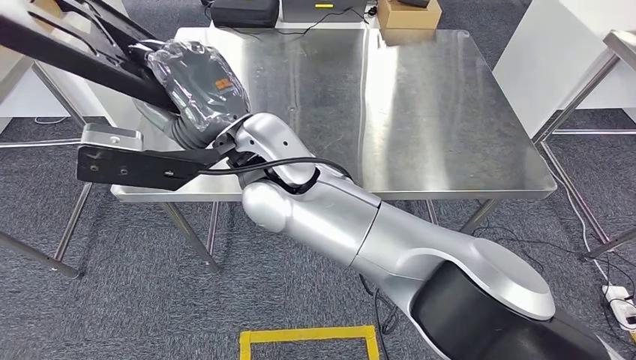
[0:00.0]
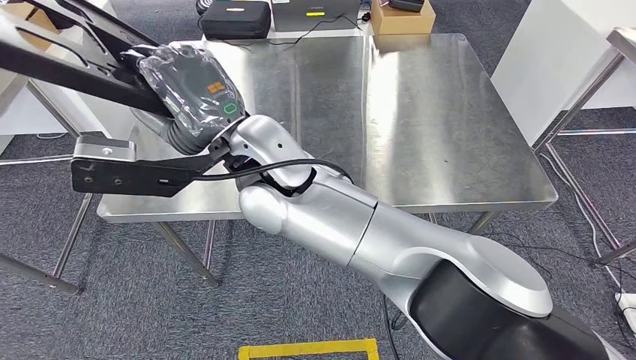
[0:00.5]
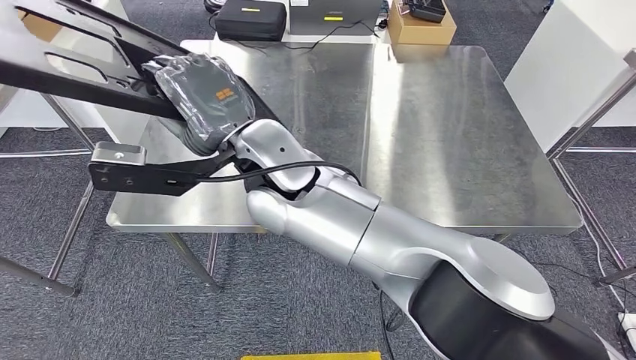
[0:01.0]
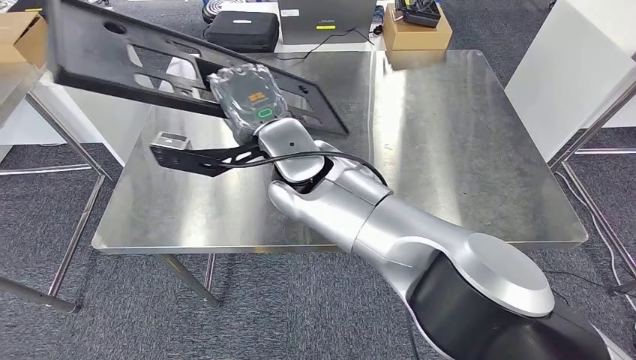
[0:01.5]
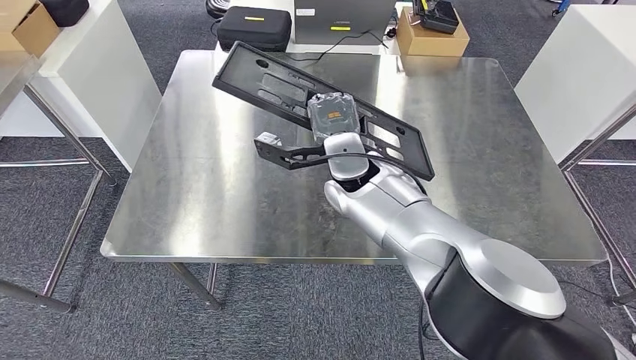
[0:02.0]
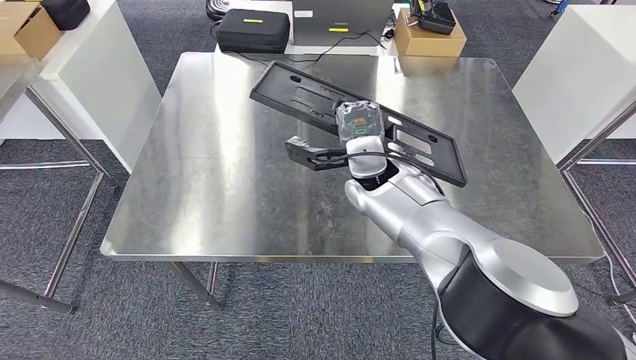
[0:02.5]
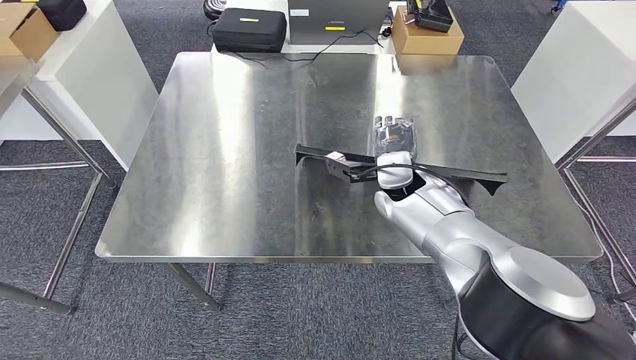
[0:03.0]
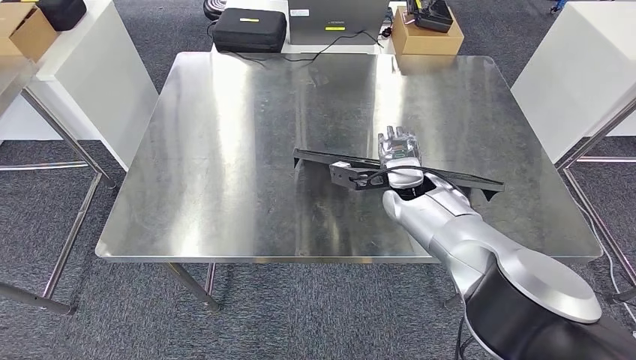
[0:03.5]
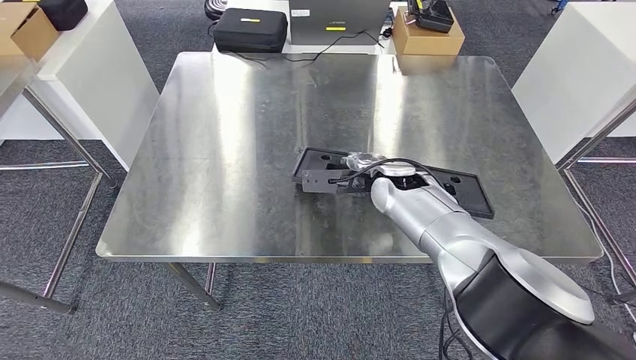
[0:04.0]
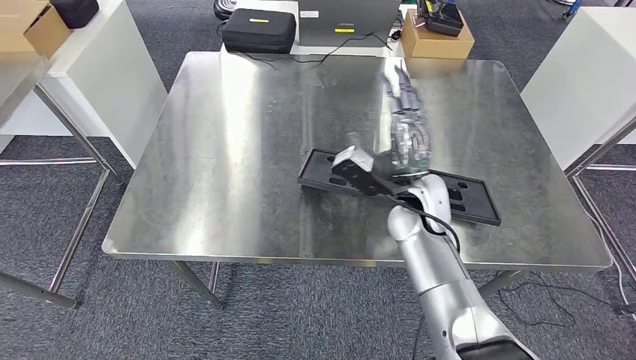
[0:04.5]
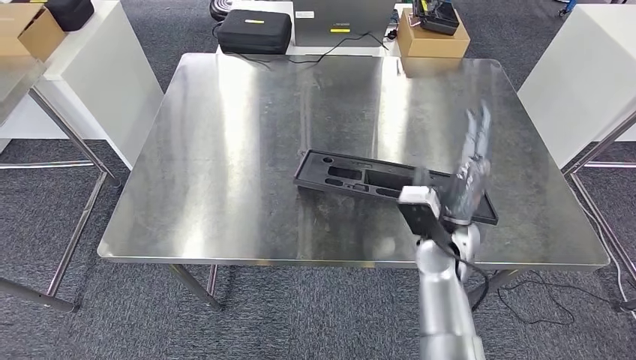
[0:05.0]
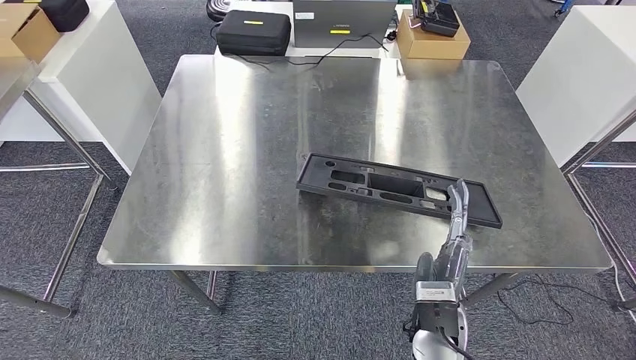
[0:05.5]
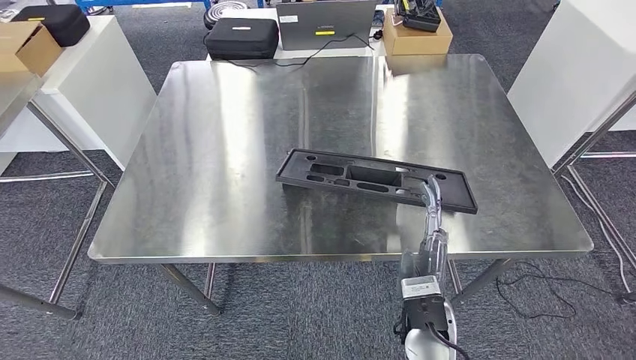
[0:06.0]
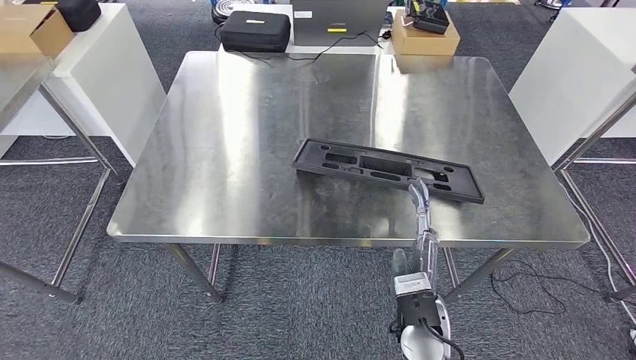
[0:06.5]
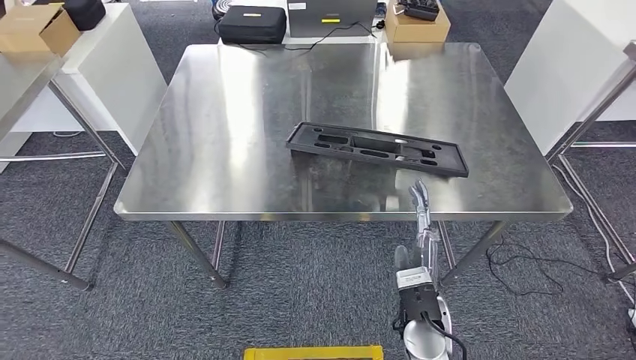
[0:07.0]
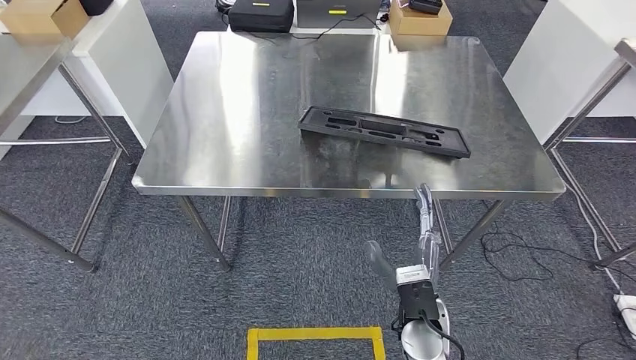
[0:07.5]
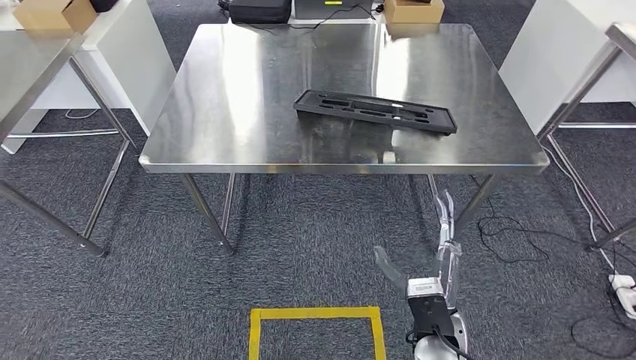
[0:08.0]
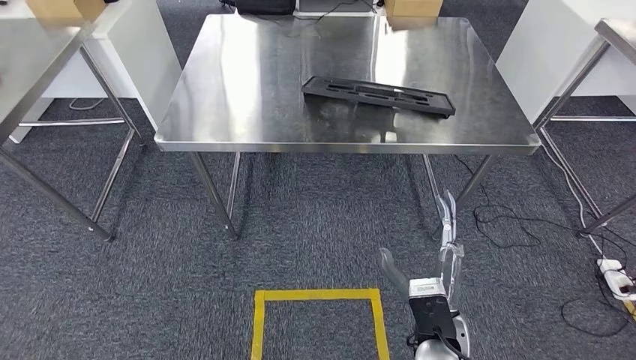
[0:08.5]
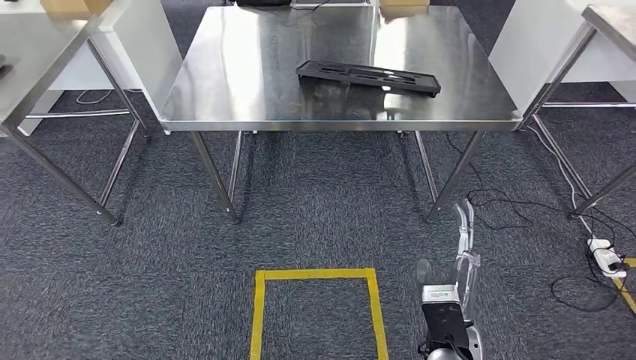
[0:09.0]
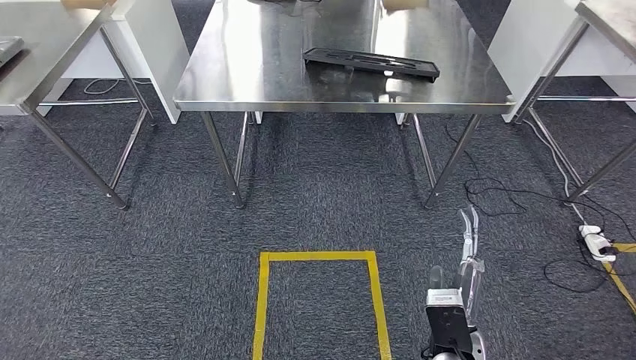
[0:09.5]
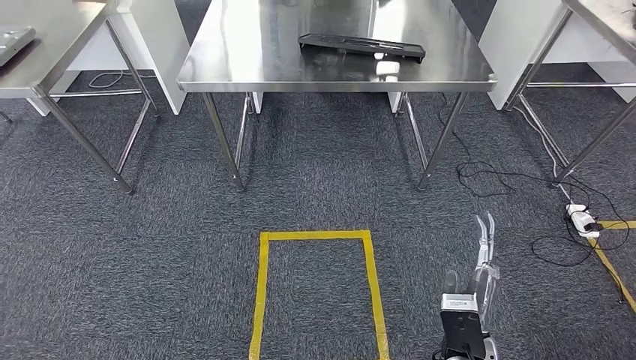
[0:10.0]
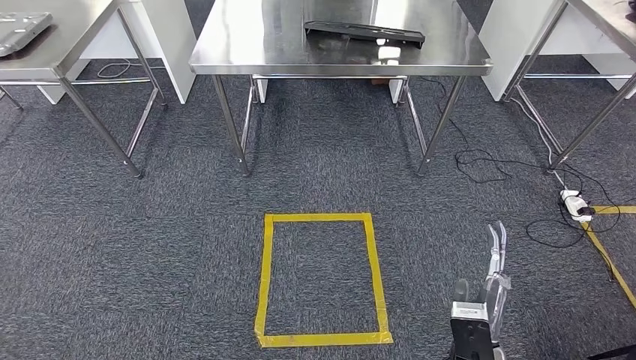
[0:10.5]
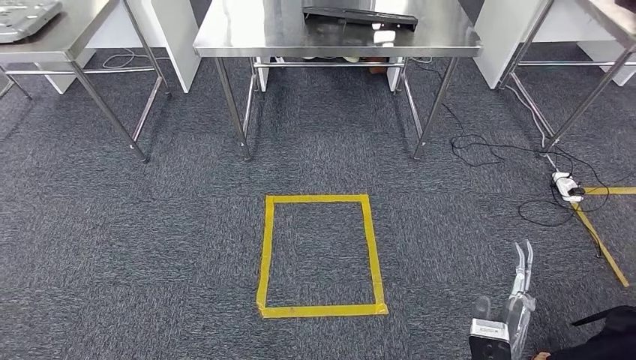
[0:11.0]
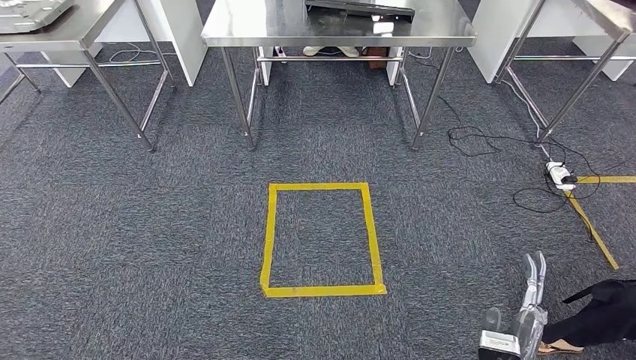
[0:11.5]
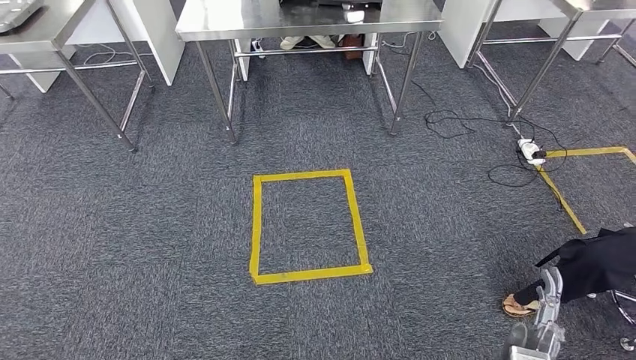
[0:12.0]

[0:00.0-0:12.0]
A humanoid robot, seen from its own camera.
Step, 0:00.0 to 0:05.0: Insert the large material into the corresponding slot on the workbench.

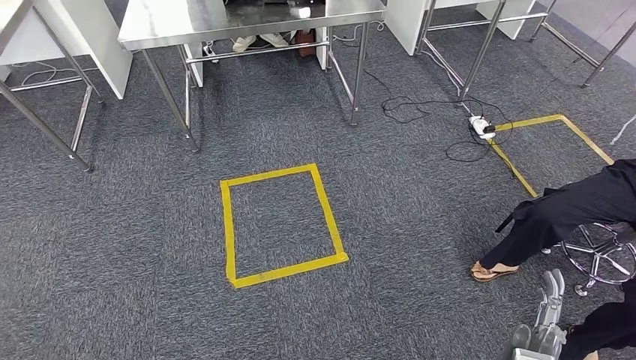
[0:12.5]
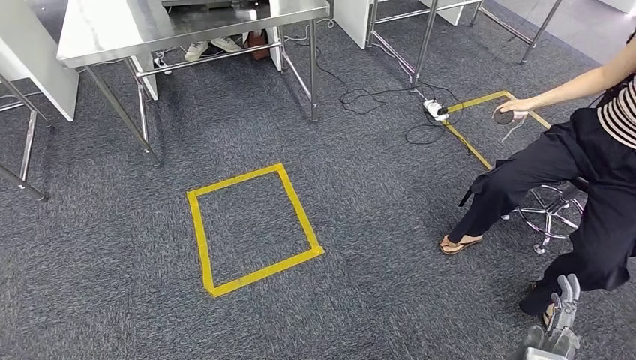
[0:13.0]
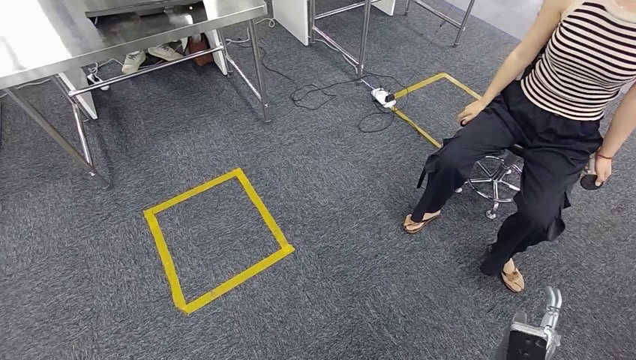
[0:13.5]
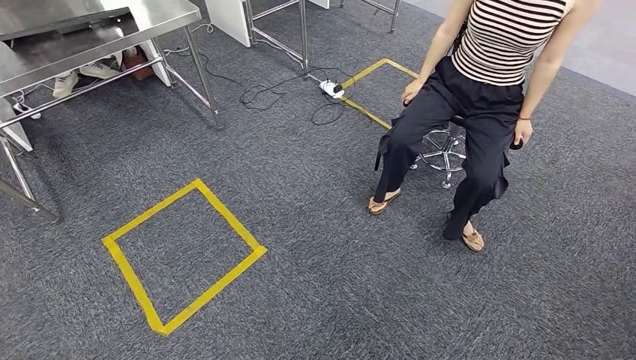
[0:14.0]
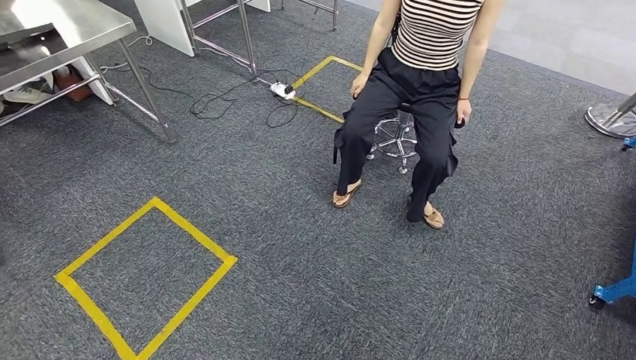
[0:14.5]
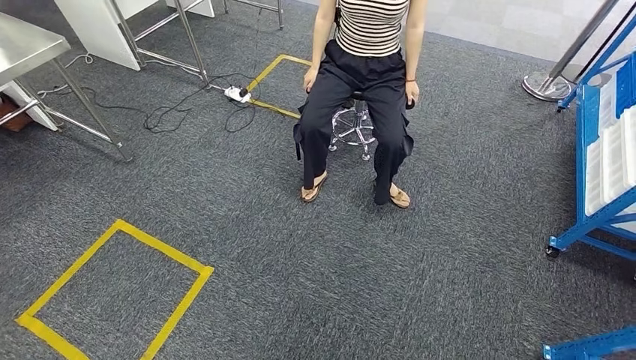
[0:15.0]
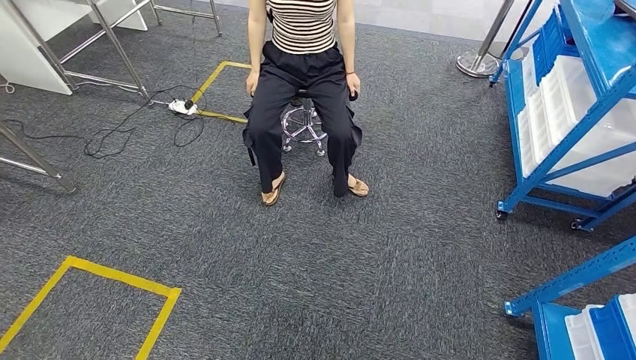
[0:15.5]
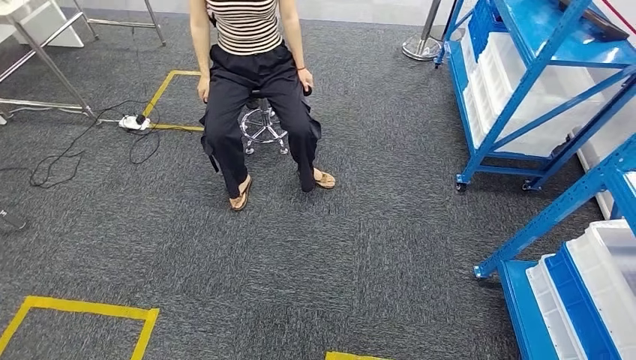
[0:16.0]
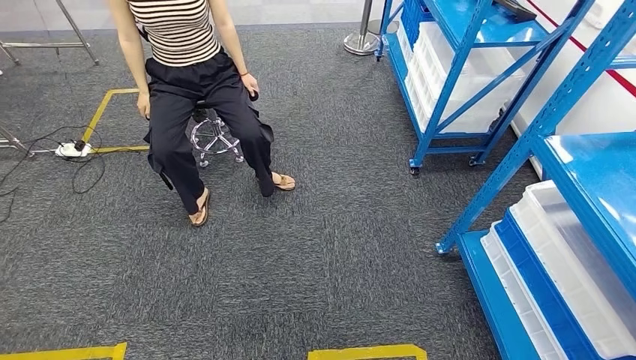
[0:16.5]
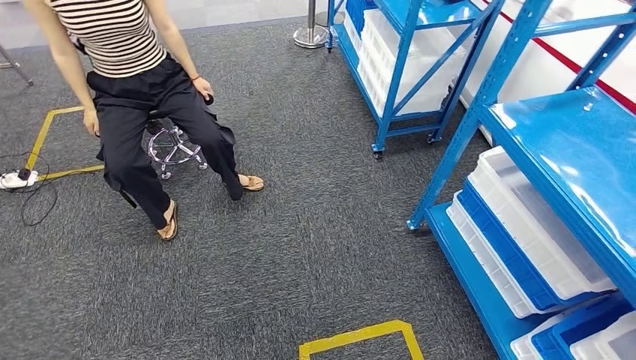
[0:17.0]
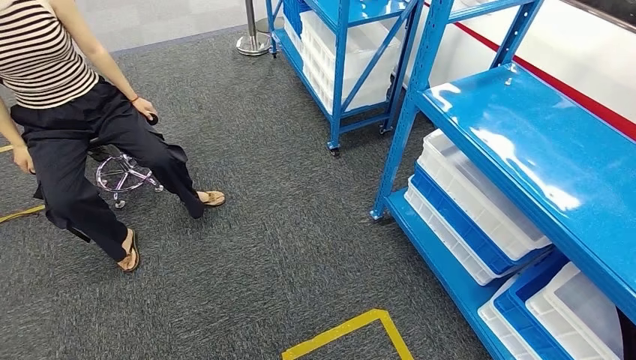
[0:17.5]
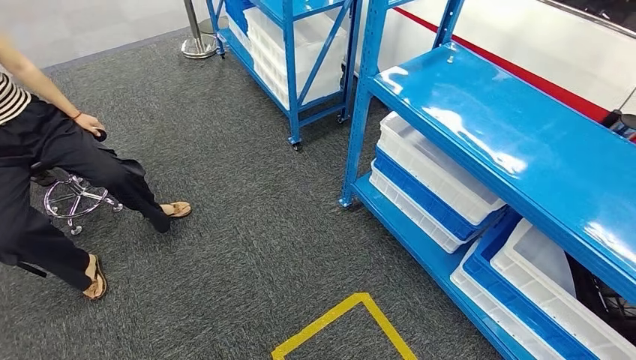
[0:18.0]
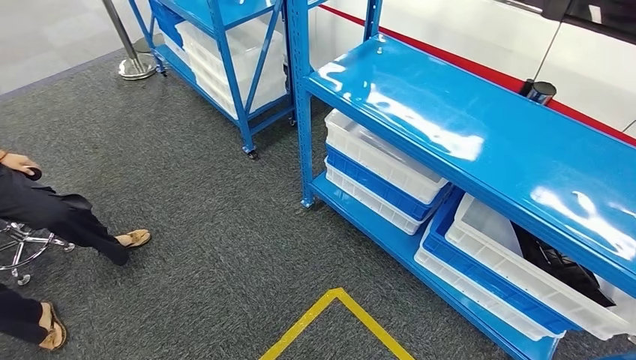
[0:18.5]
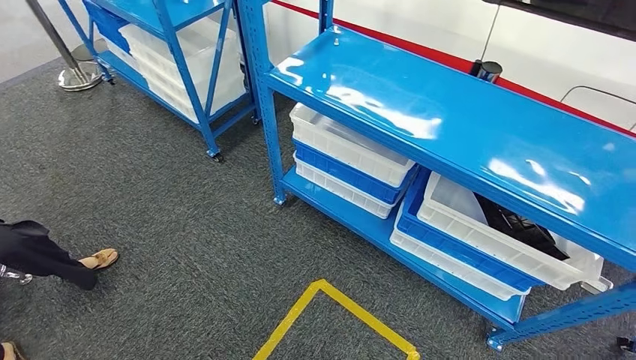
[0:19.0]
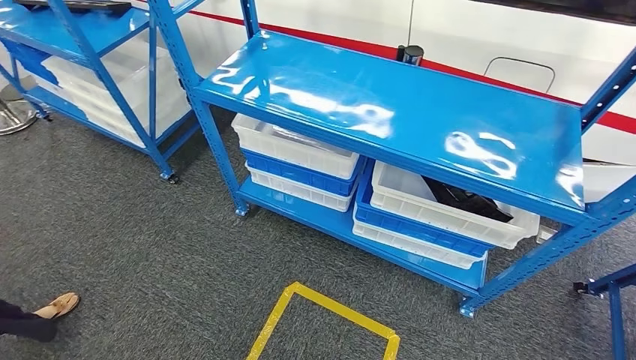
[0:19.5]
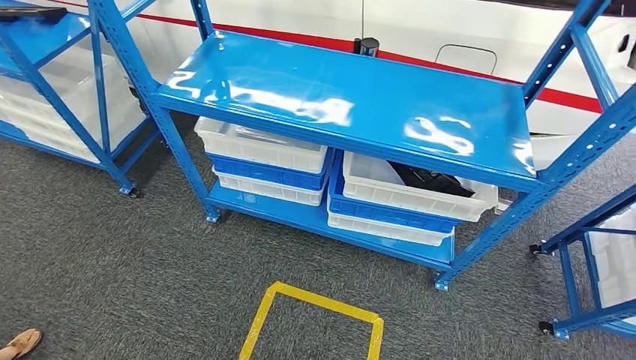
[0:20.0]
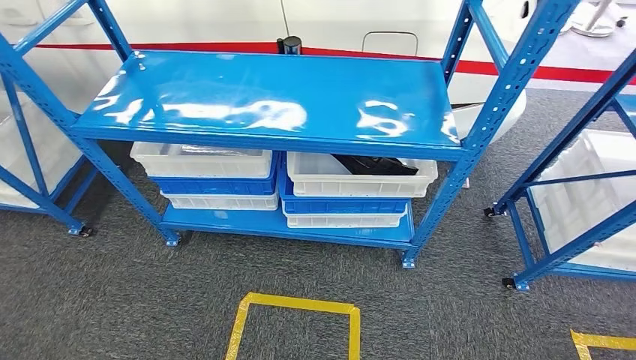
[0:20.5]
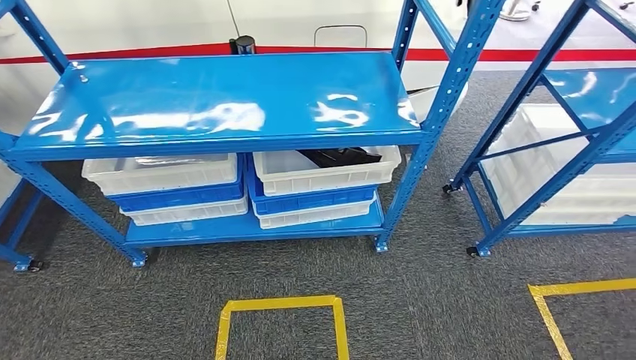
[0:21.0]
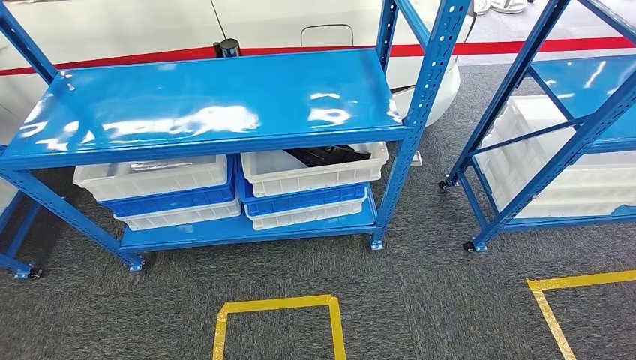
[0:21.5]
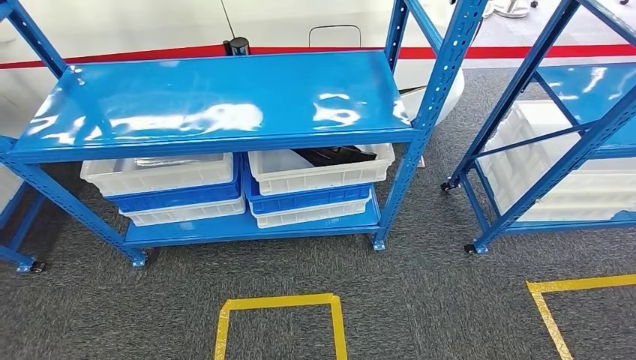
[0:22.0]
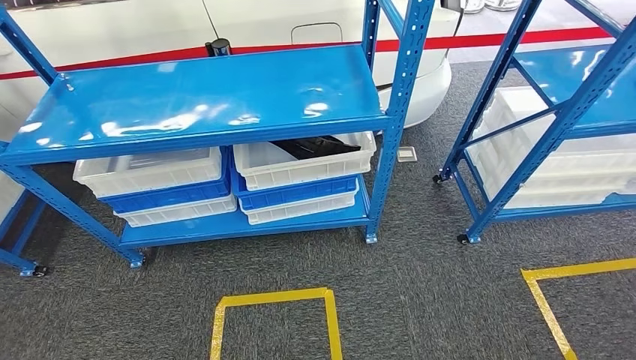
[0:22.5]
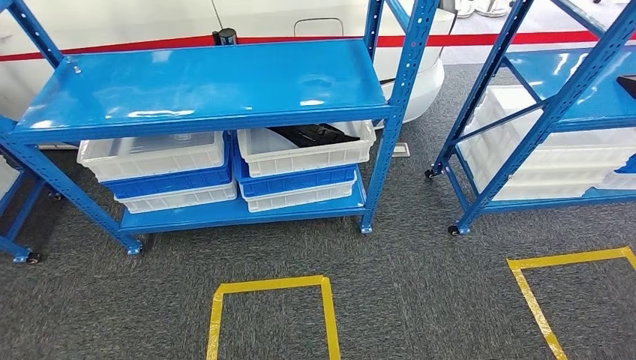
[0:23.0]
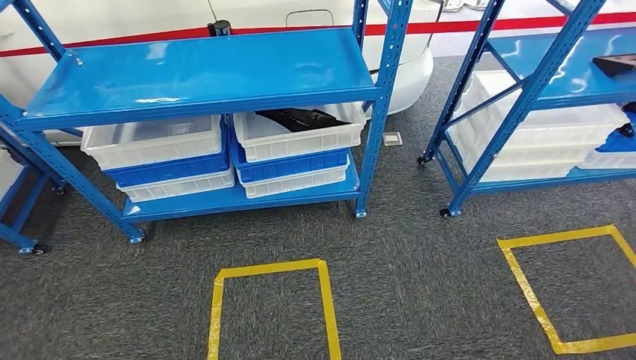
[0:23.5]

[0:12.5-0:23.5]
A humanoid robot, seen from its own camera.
Step, 0:12.5 to 0:23.5: Move to the initial position of the shelf.
